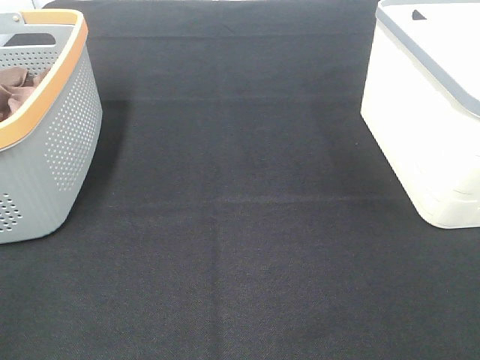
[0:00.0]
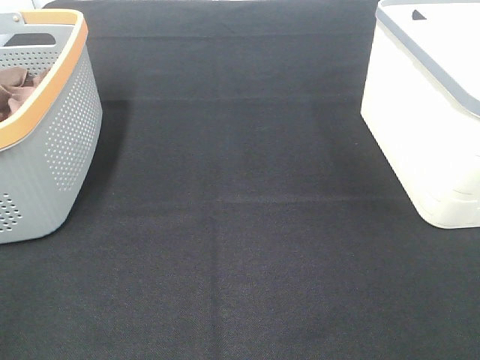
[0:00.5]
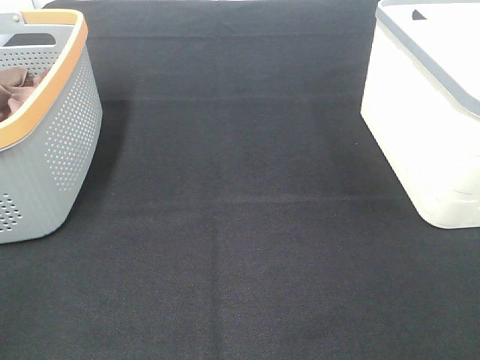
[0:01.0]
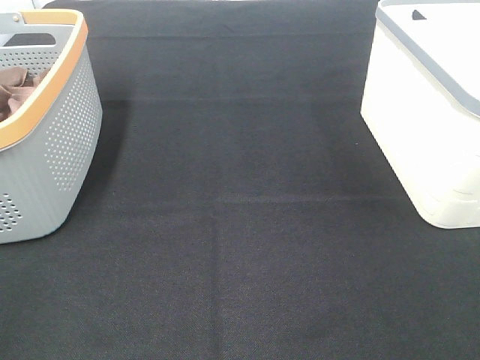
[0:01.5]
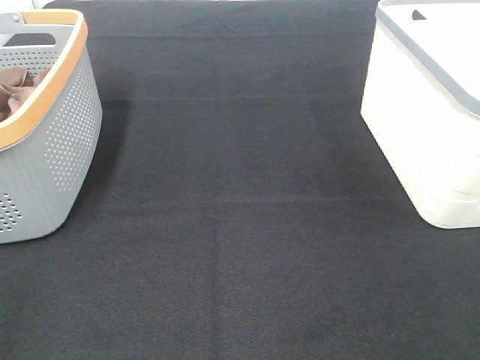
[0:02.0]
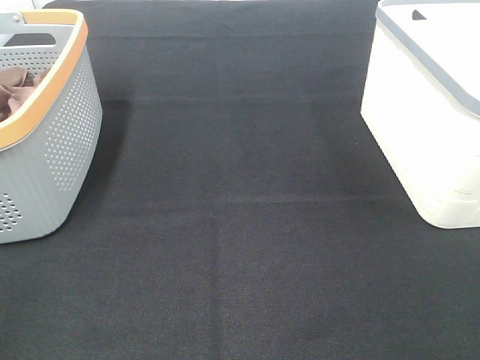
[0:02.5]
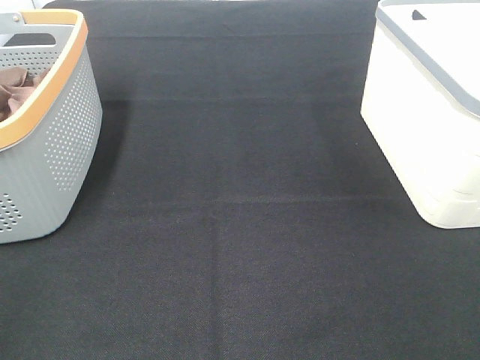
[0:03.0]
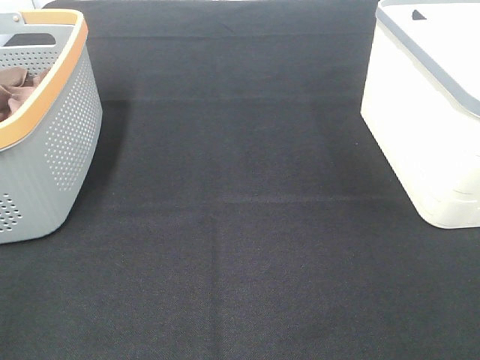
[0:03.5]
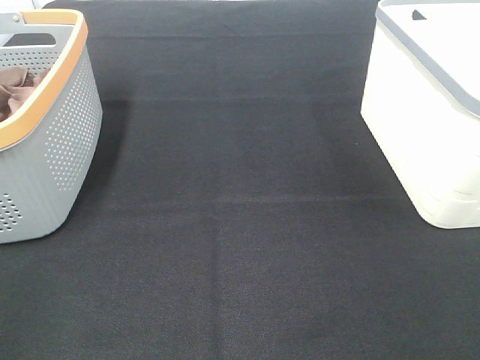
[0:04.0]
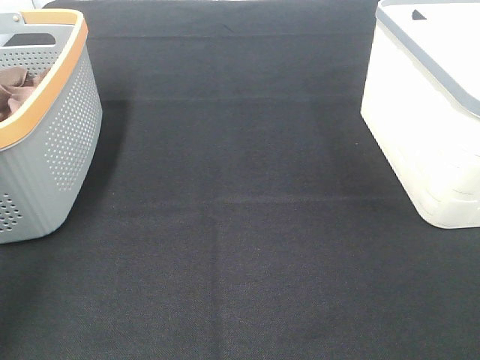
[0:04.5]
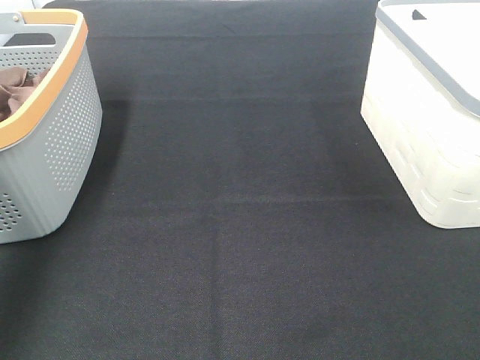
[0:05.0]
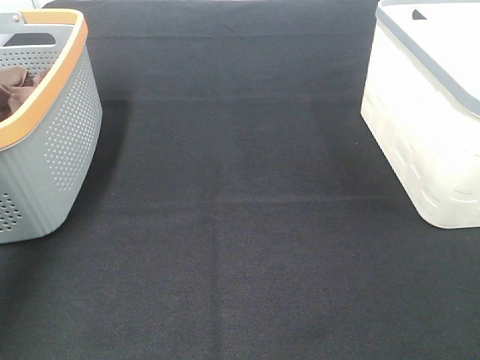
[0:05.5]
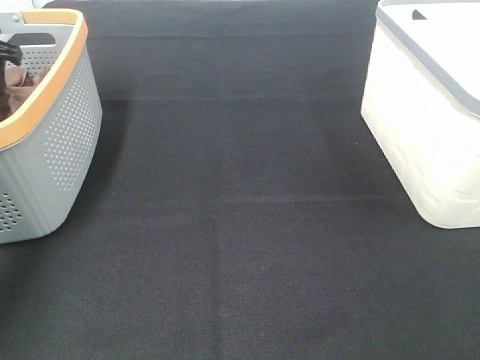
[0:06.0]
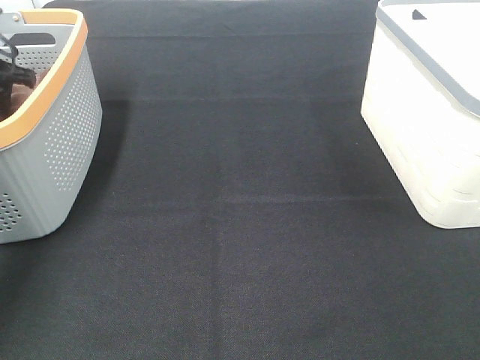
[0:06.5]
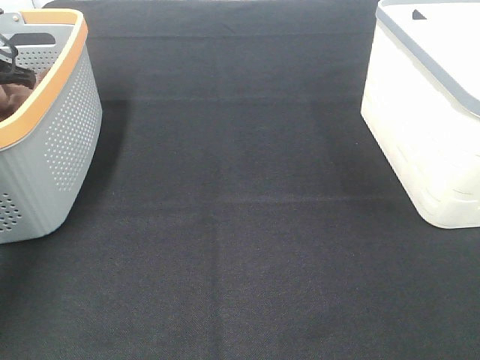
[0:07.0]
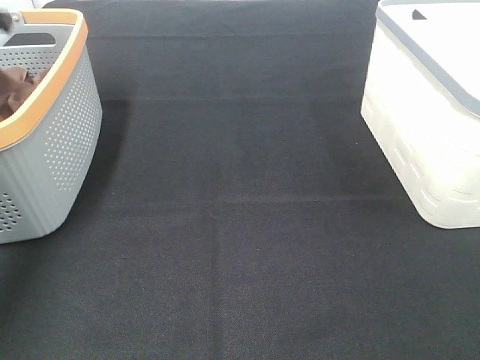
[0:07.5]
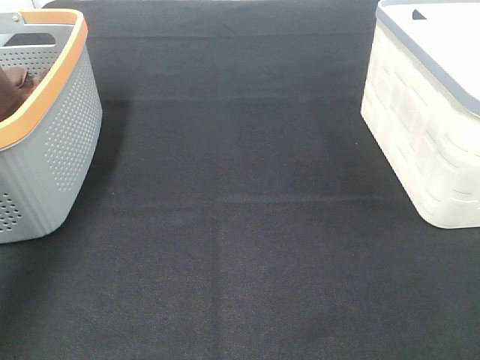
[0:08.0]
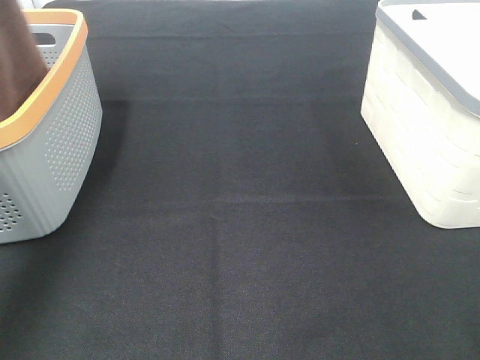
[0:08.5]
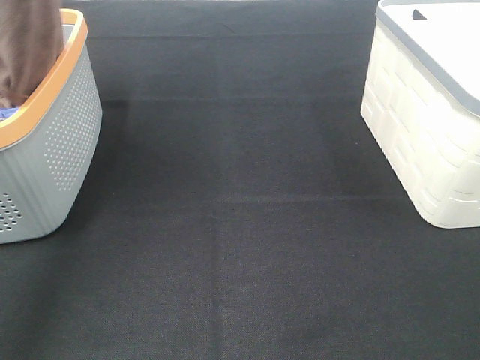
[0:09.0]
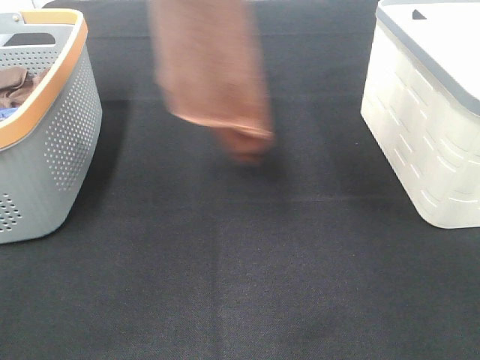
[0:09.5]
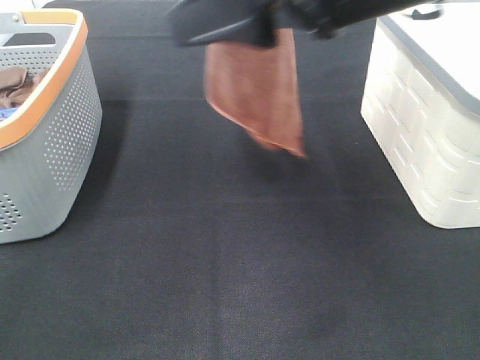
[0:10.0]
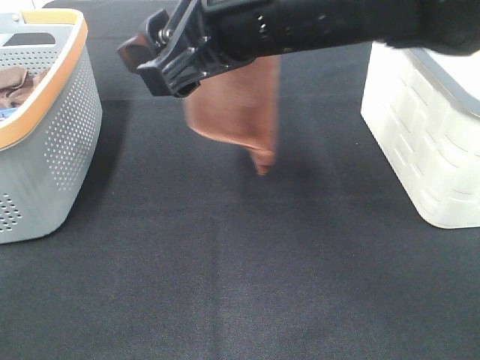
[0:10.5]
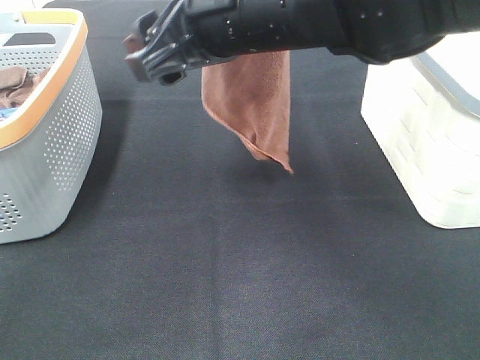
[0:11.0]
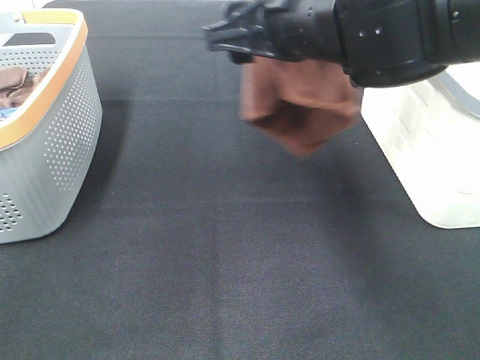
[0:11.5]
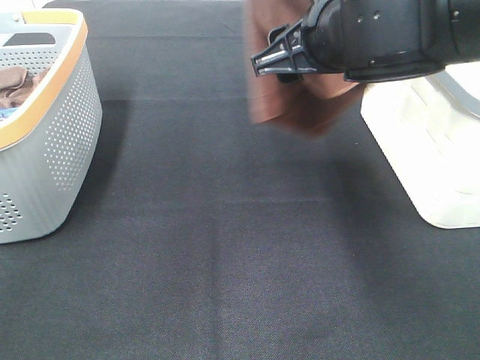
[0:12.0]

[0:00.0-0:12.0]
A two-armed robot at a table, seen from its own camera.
Task of the whole recording: Remove the towel and place it.
Step, 0:08.0 to 0:11.0: Right hand: grab a corner of the brown towel and straighten it.
0:00.0 to 0:04.0: Neither gripper changes place.
0:04.0 to 0:06.0: The left gripper heads forward, covering roughly 40 cm.
0:06.0 to 0:08.0: The left gripper shifts some 20 cm upward and backward, and closes.
0:08.0 to 0:10.0: The left gripper shifts approximately 25 cm to the right. Meanwhile the right gripper travels forward and to the left by roughly 30 cm.
0:10.0 to 0:12.0: The right gripper moves downward and forward, some 10 cm.

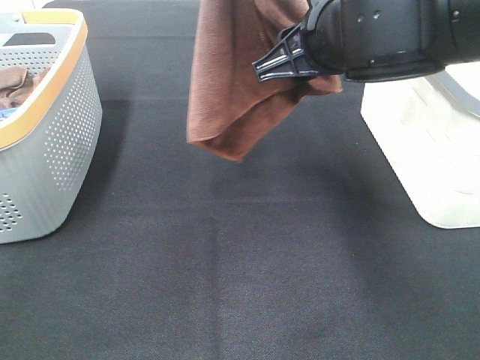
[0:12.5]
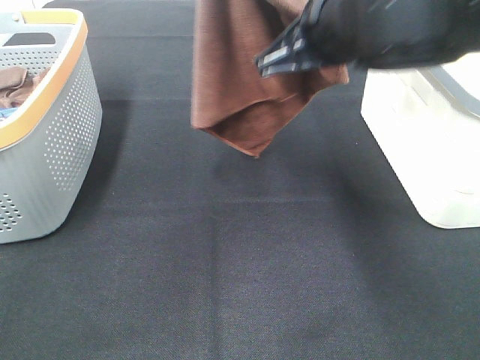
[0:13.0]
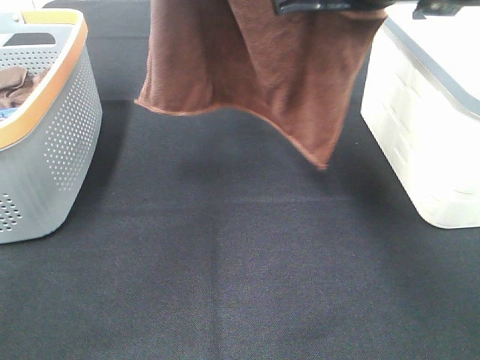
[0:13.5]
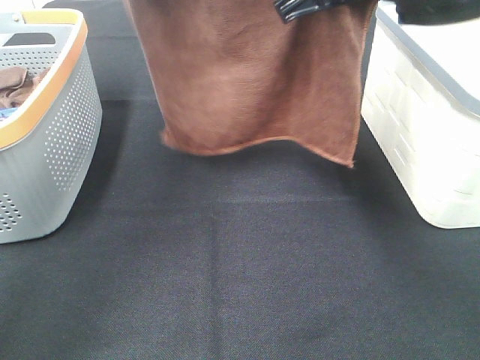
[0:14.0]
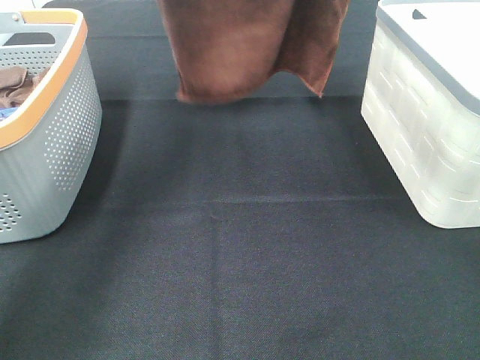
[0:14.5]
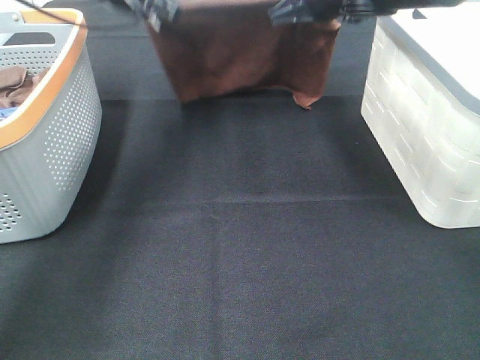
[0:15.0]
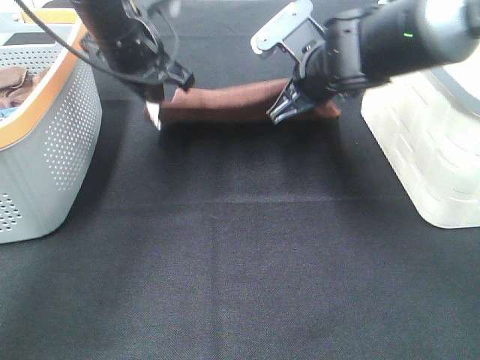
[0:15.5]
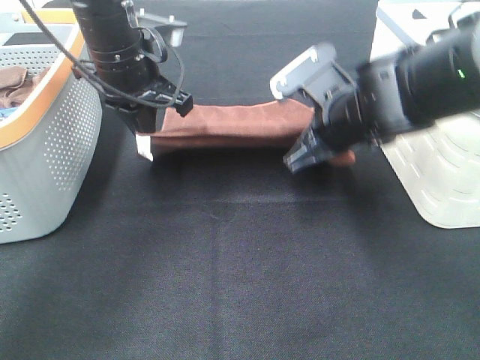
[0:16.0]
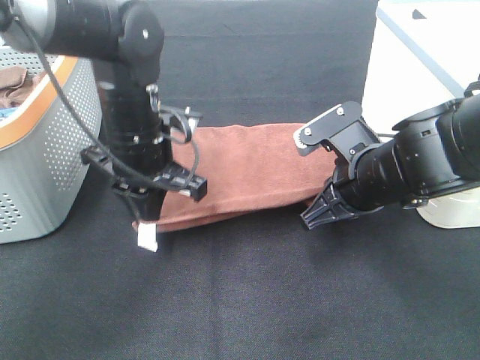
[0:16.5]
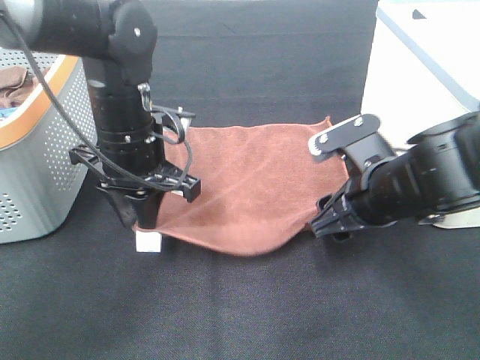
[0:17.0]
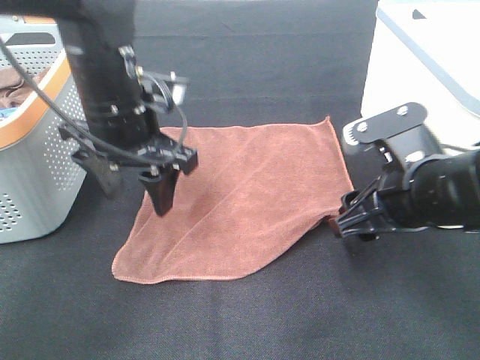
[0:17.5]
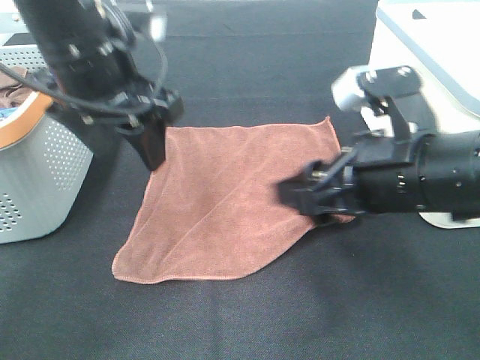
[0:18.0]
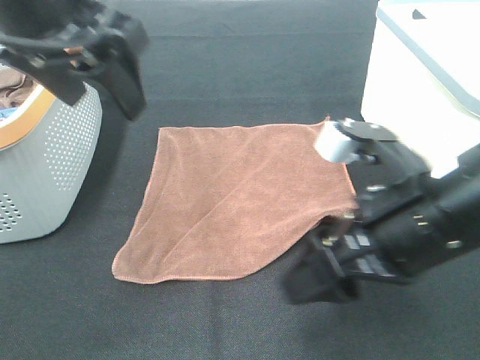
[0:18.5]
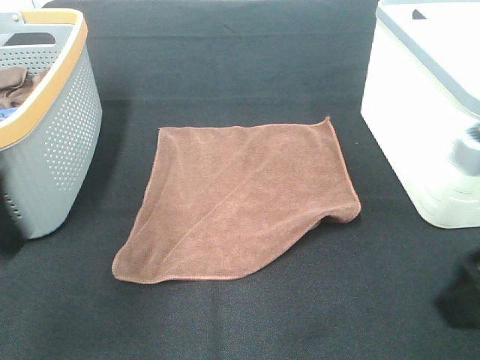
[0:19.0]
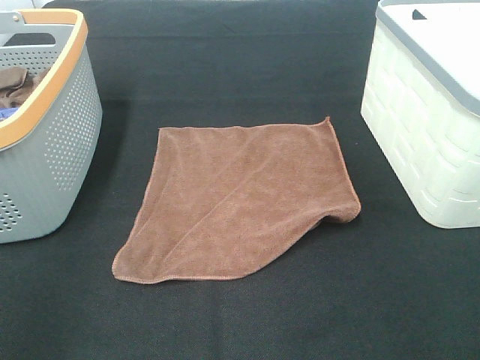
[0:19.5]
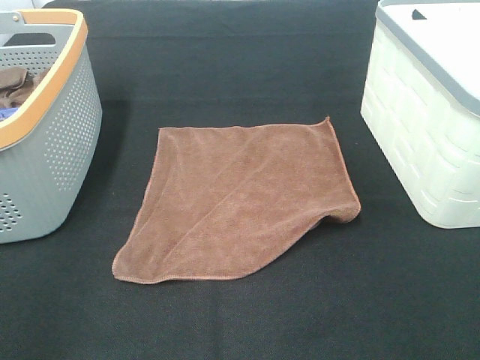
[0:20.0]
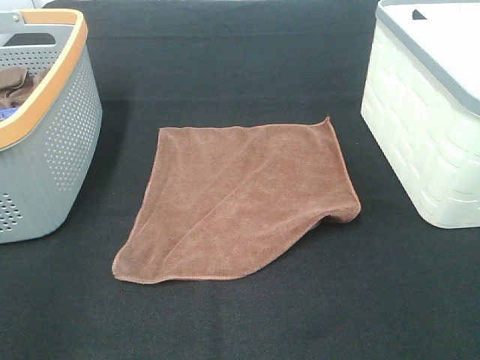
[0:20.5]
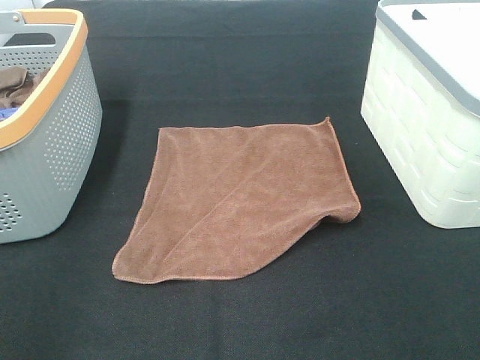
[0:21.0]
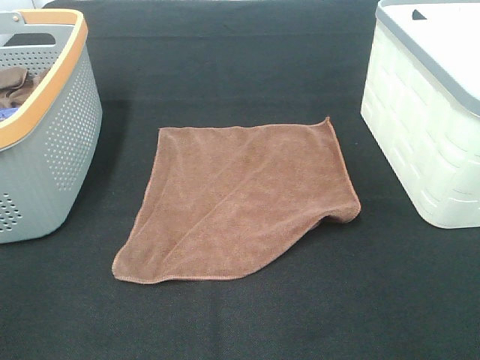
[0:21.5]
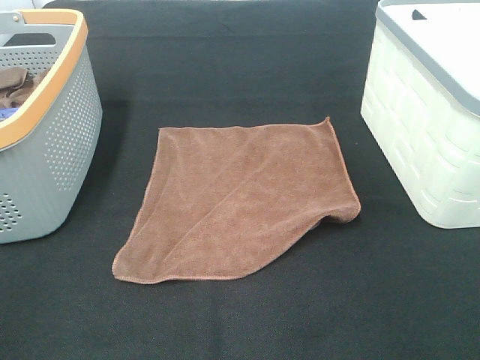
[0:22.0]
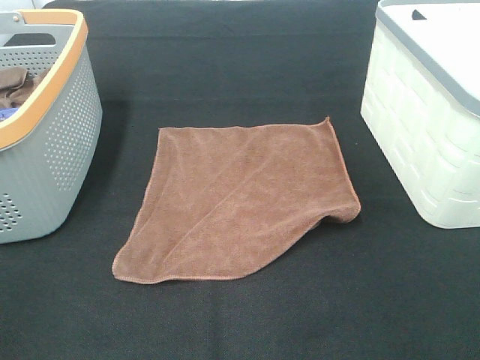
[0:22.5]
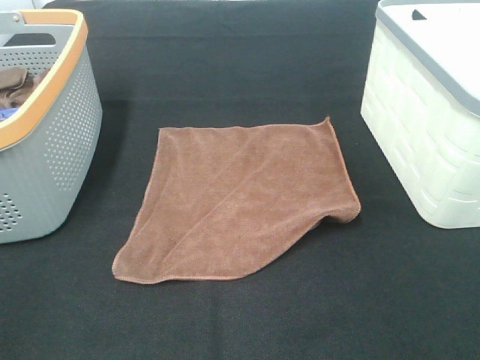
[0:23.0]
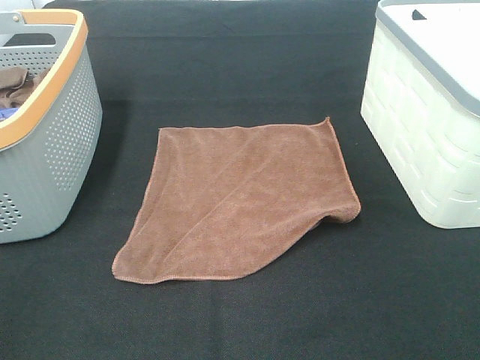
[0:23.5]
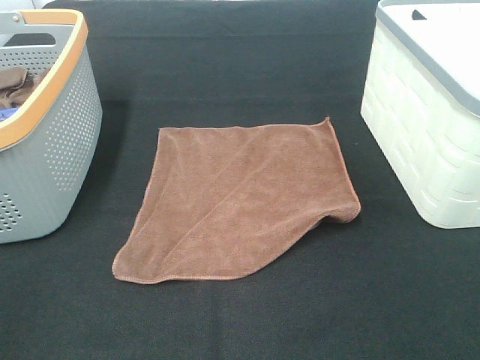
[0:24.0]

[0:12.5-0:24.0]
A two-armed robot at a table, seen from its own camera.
Task of the whole recording: Remove the towel and place it.
0:12.5 to 0:14.5: The left gripper shifts approximately 20 cm forward, downward and to the left; the right gripper is displaced forward by roughly 15 cm, and closes its fingers.
0:14.5 to 0:16.5: The left gripper goes roughly 25 cm downward and backward; the right gripper travels backward and downward by some 25 cm.
0:16.5 to 0:18.5: The left gripper heads upward, covering approximately 20 cm, and opens up. Meanwhile the right gripper moves backward and upward, approximately 15 cm, and opens up.
0:18.5 to 0:20.0: The right gripper heads backward, to the right and upward, covering roughly 20 cm. The left gripper shifts roughly 25 cm backward and to the left.

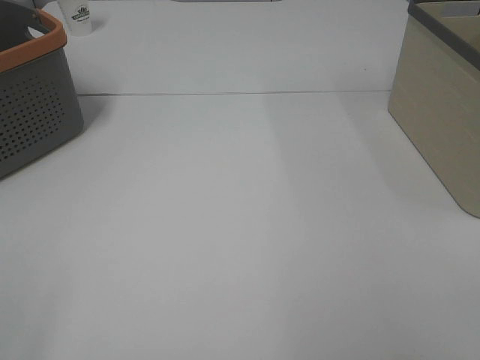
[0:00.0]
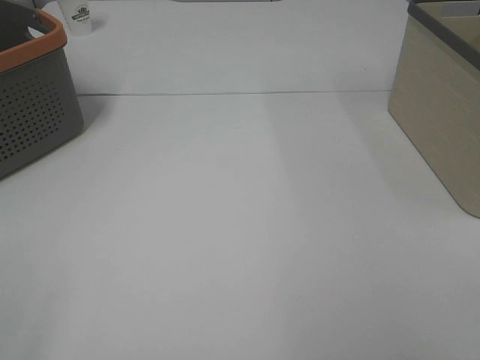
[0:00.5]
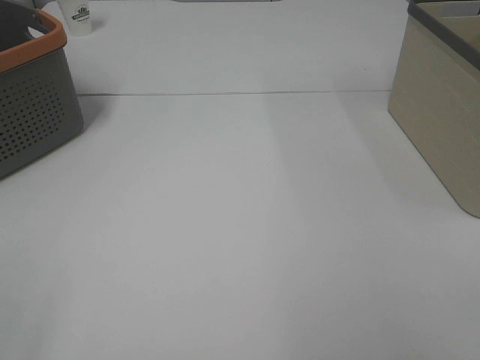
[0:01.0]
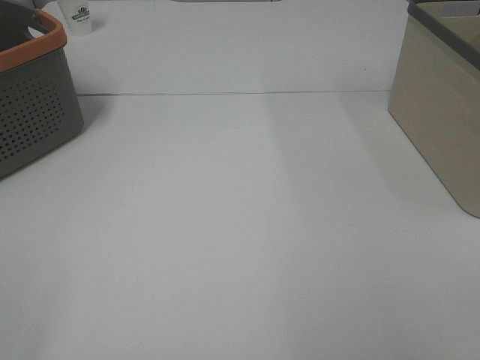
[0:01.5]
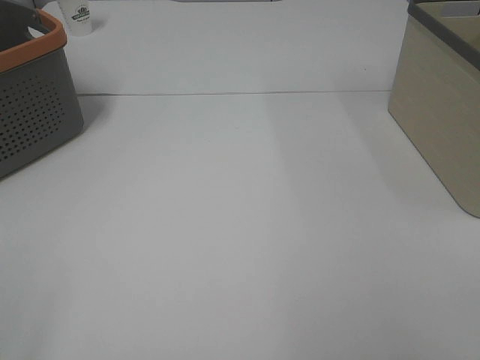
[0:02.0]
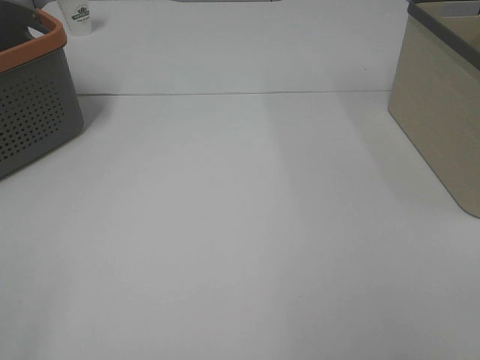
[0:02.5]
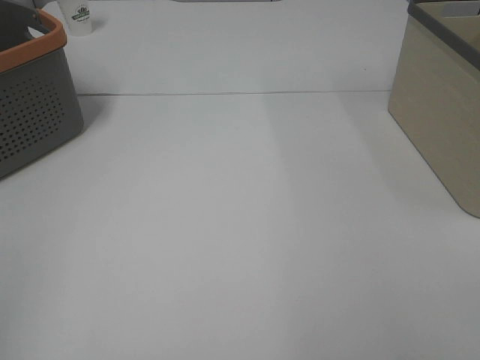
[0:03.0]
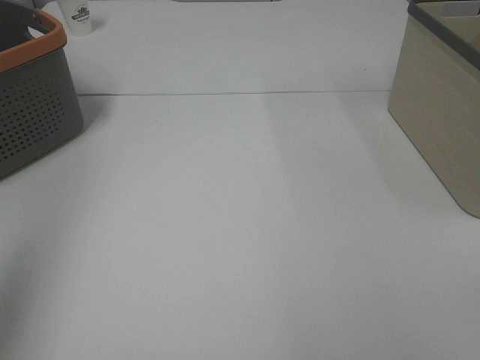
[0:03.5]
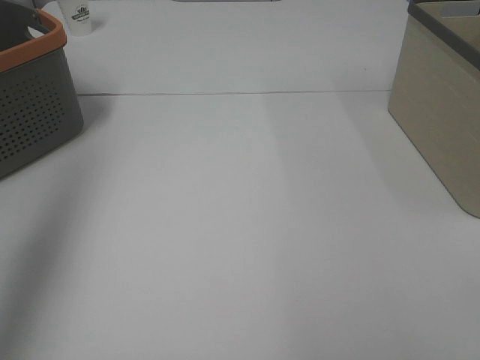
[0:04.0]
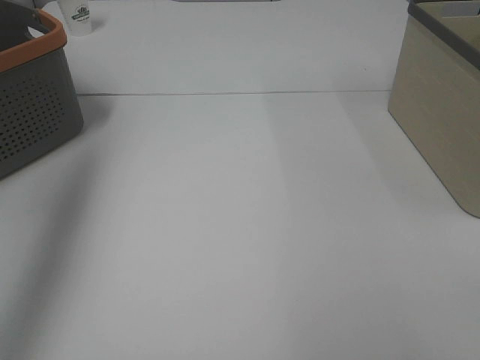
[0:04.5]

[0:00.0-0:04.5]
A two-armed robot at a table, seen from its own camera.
Task of the whole recording: Remove the towel and place it.
0:00.0 to 0:02.0: Both grippers stay about where they are.
0:02.0 to 0:04.5: The left gripper goes roughly 35 cm forward and upward.
